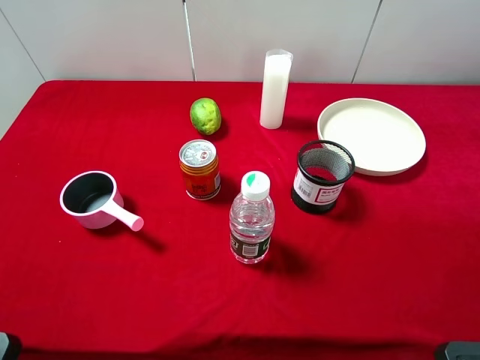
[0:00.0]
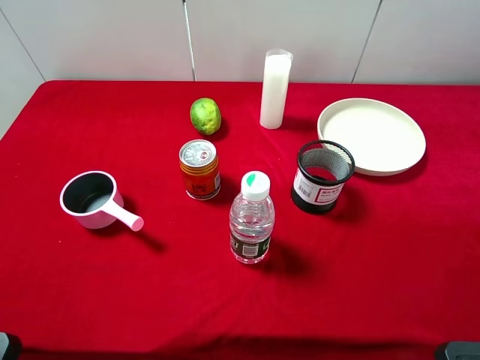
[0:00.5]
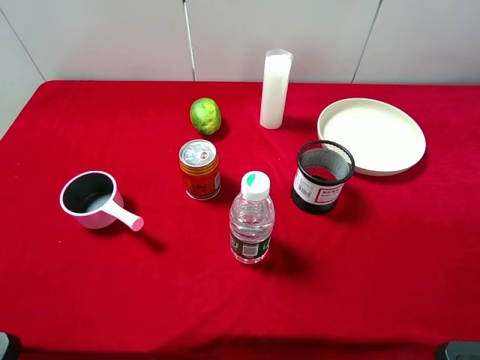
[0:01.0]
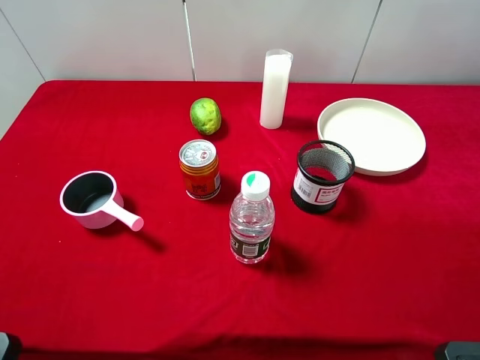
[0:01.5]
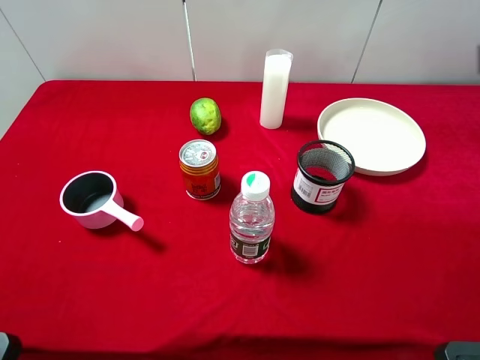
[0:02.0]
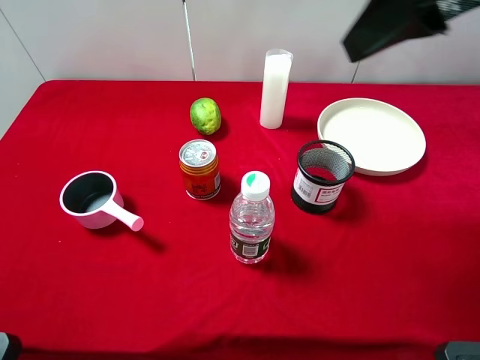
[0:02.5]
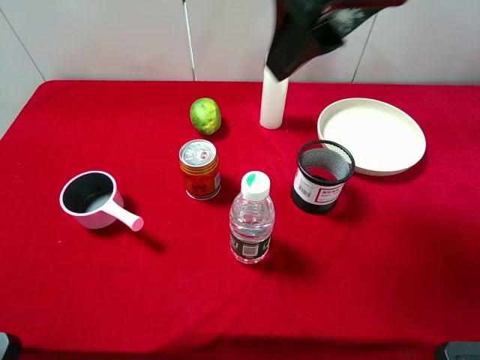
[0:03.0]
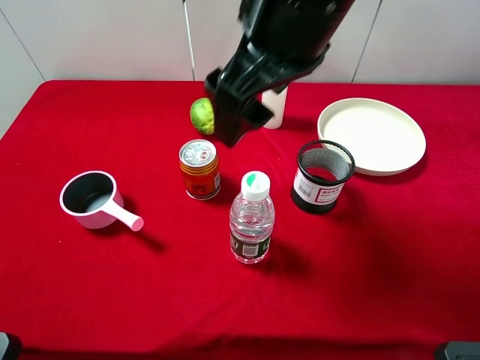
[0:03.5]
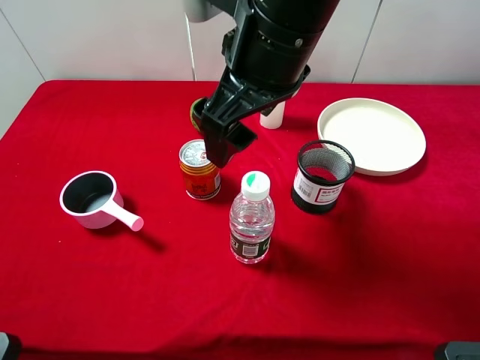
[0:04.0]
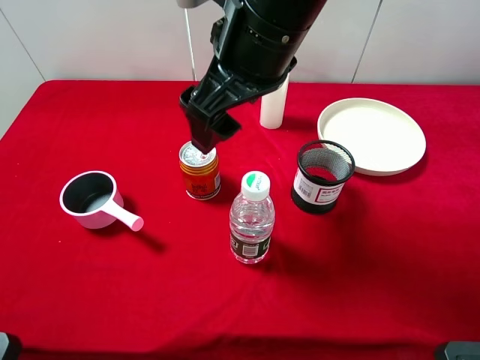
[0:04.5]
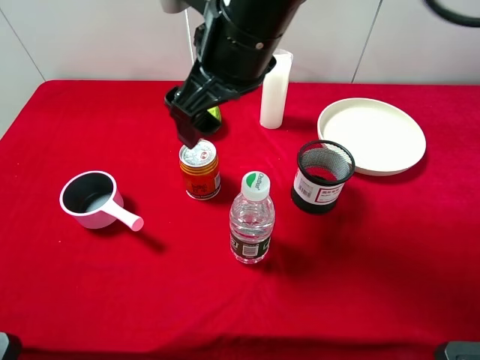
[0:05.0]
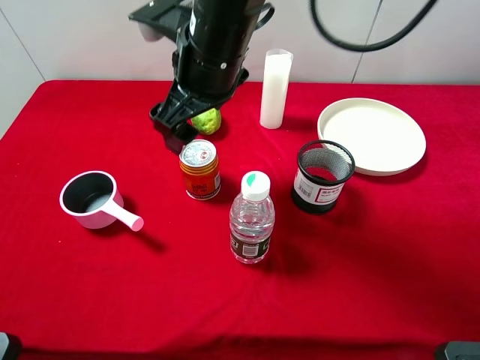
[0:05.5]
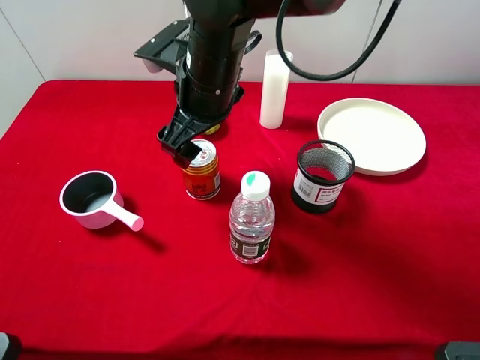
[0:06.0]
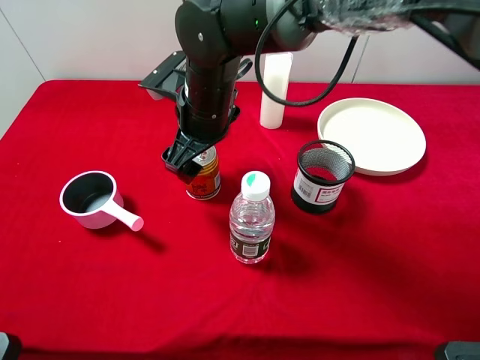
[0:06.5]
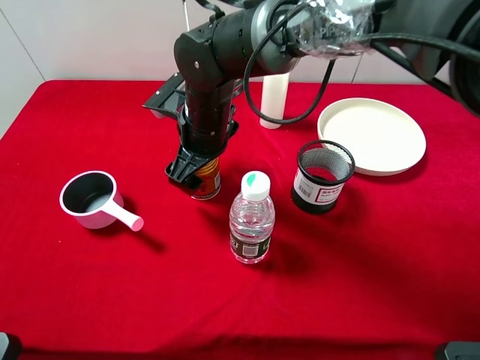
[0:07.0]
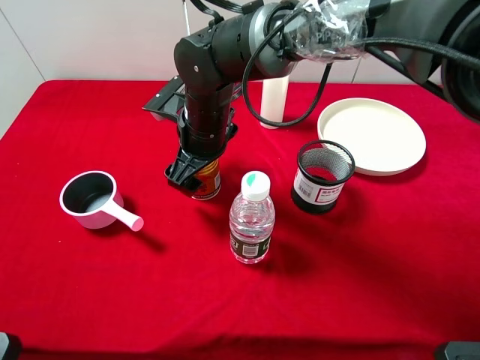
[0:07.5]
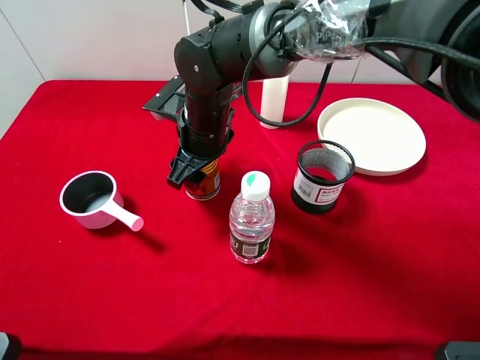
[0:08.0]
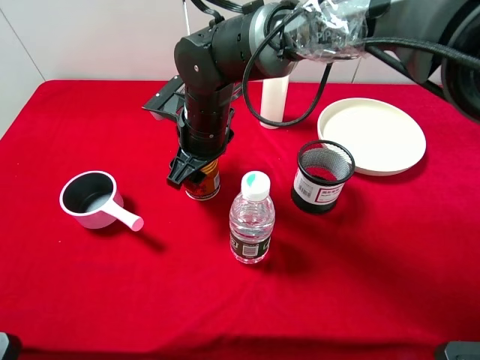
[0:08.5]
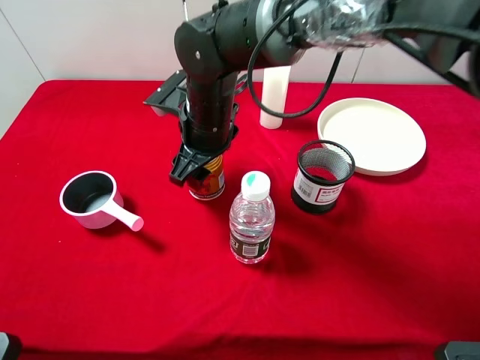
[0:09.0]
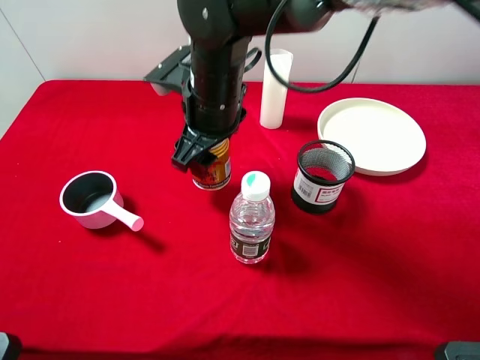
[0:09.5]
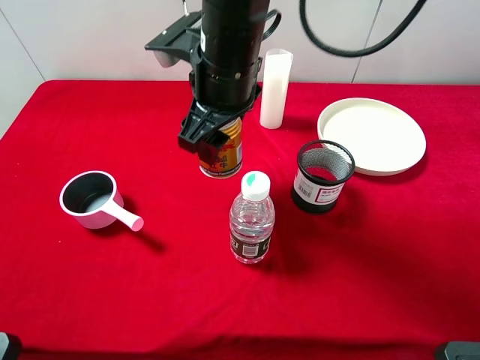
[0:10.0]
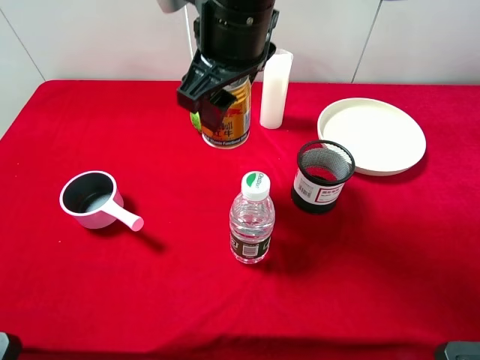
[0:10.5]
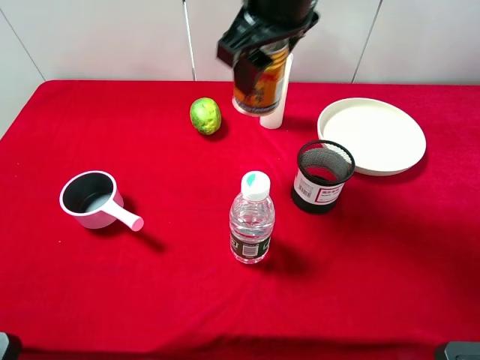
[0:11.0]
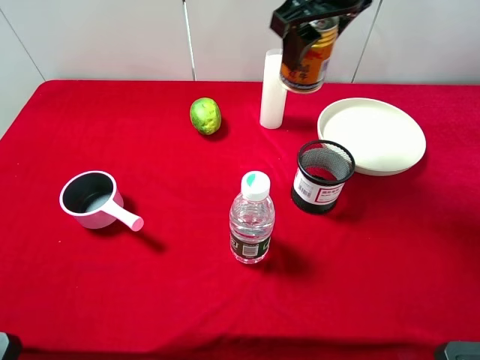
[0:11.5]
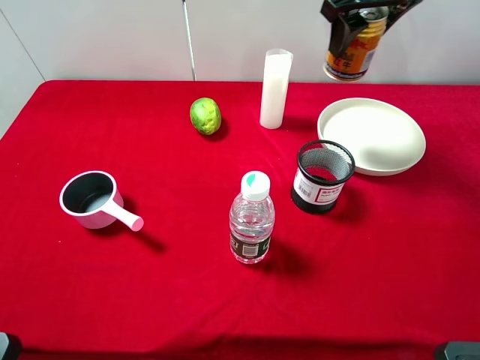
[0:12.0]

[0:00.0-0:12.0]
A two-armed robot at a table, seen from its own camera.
Task of the whole recording: pick up an item with a gripper and place it in a random container on the desktop.
0:02.0 to 0:04.0: The right gripper heads to the left, covering about 20 cm.
0:04.0 to 0:06.0: The right gripper travels downward, to the left and forward by approximately 15 cm.
0:06.0 to 0:08.0: The right gripper moves downward, some 10 cm, and closes.
0:08.0 to 0:10.0: The right gripper moves upward, roughly 10 cm.
0:10.0 to 0:12.0: The right gripper goes about 20 cm to the right, forward and upward.

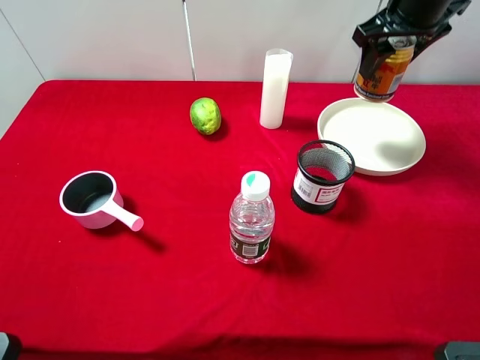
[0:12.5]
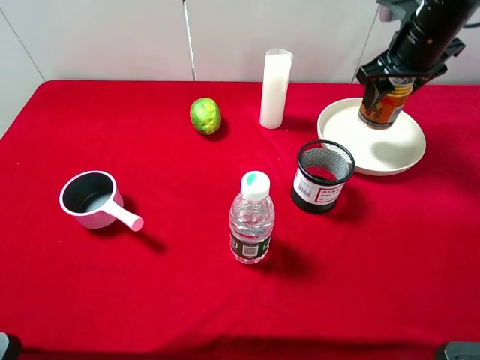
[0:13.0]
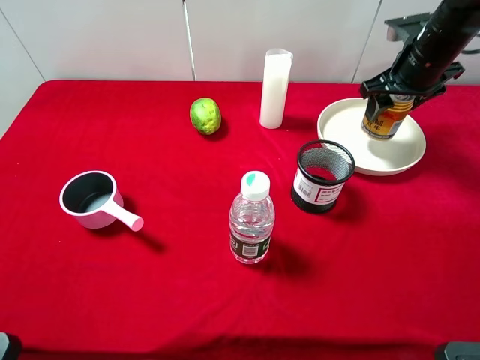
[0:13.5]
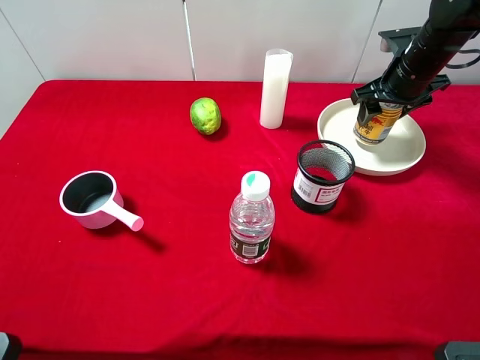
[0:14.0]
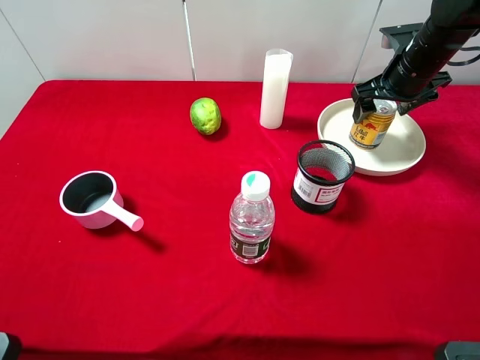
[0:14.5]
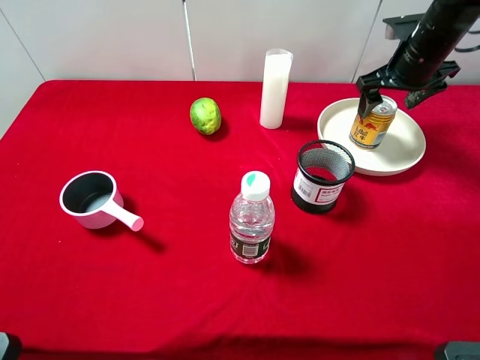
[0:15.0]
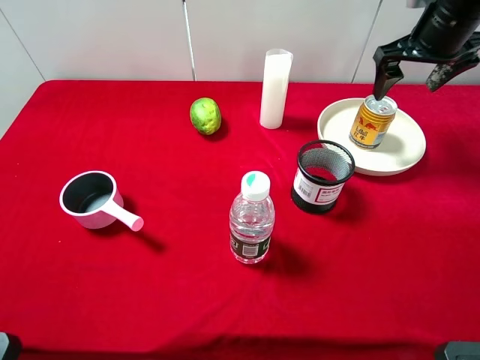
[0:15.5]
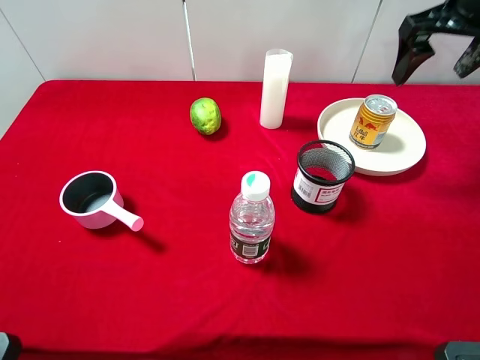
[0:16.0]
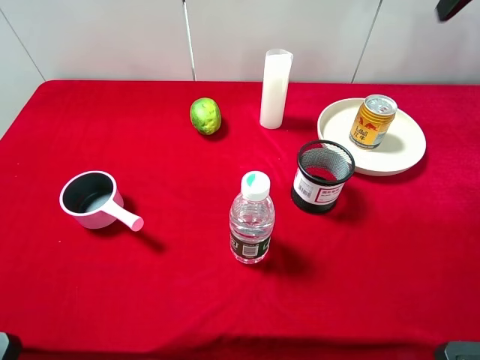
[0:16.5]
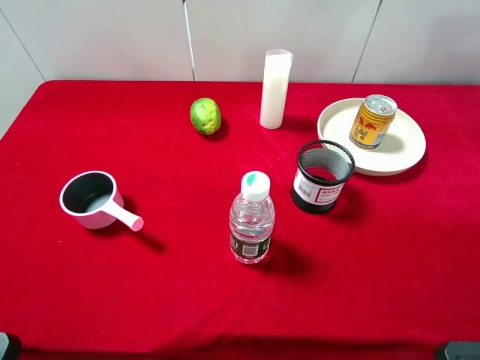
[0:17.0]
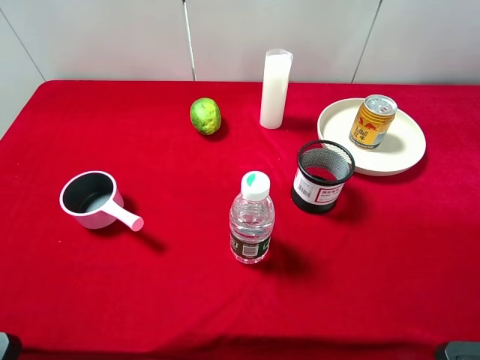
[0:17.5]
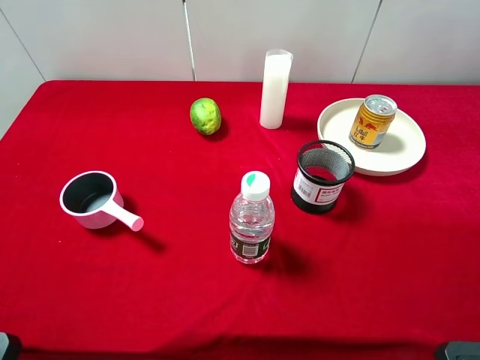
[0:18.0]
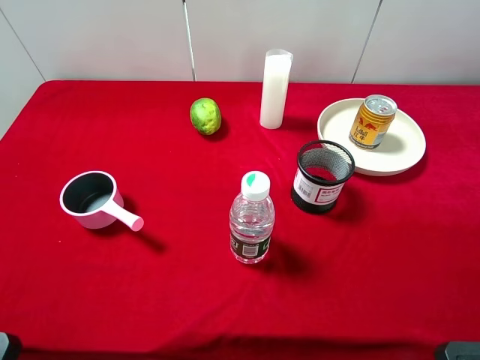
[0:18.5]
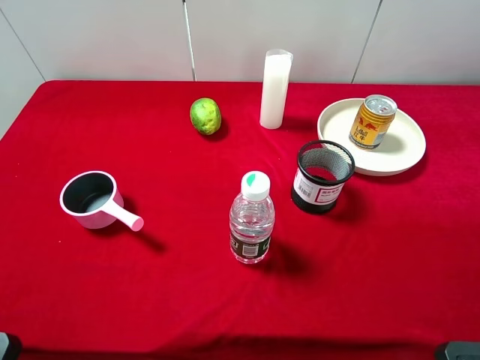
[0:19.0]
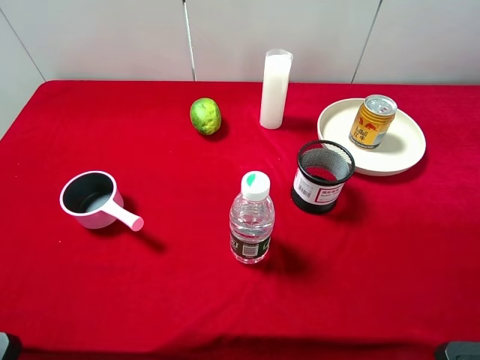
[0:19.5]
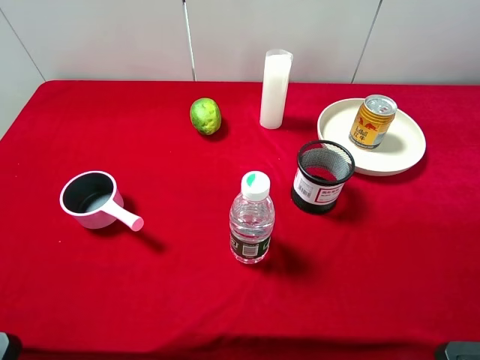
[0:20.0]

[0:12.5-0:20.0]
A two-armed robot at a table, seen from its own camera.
Task of the whole recording: pick up an item with a gripper and place it in a random container on the desktop.
0:12.5 to 0:14.5: The right gripper is displaced downward by some 10 cm, and opens its fingers.
0:14.5 to 0:16.5: The right gripper goes about 25 cm upward and backward.

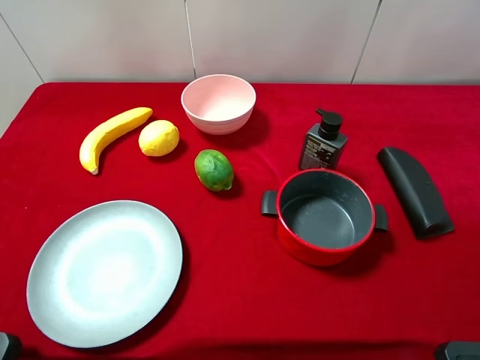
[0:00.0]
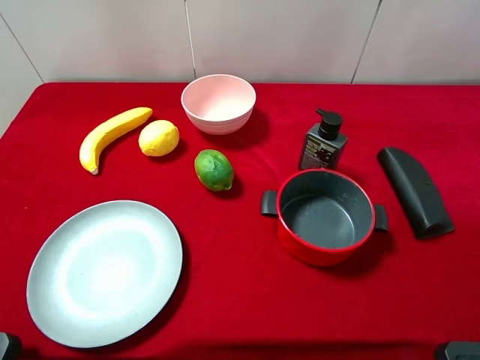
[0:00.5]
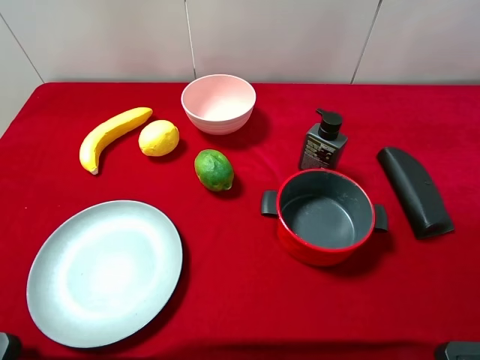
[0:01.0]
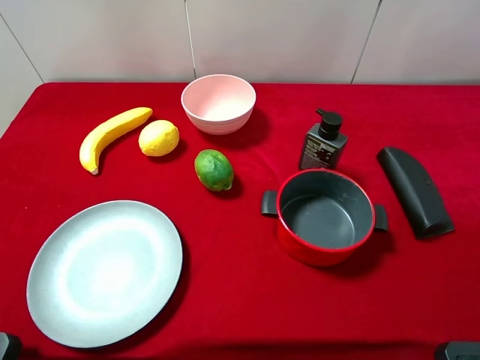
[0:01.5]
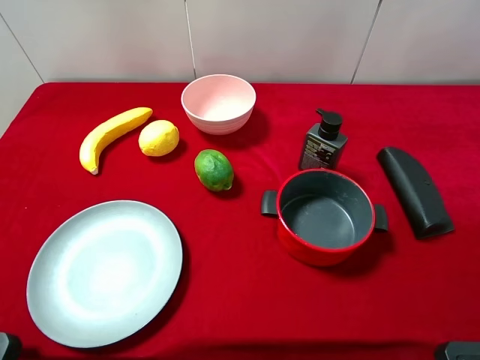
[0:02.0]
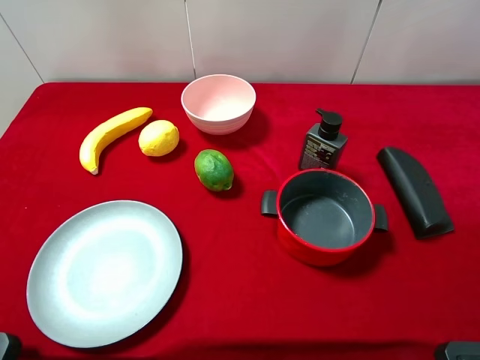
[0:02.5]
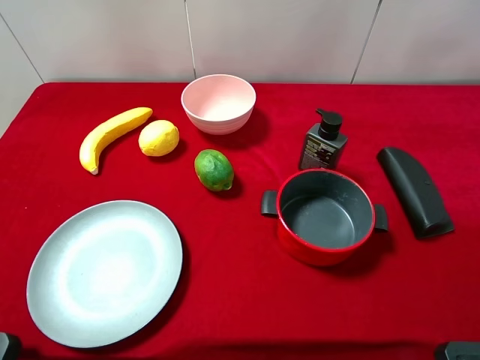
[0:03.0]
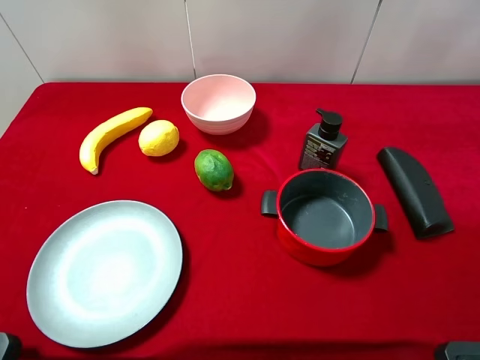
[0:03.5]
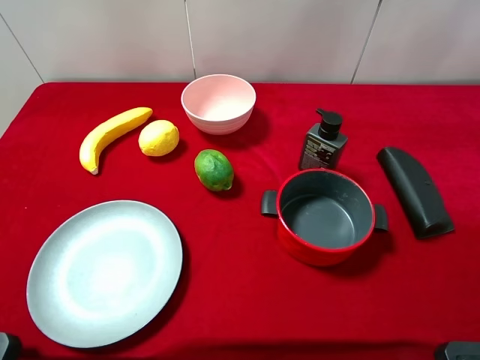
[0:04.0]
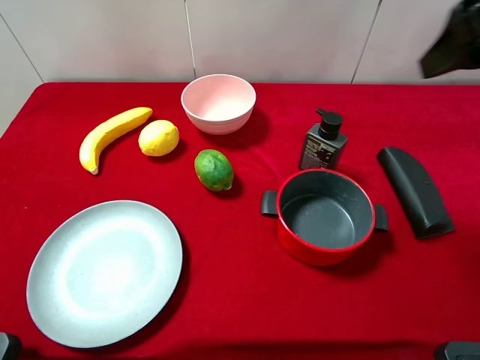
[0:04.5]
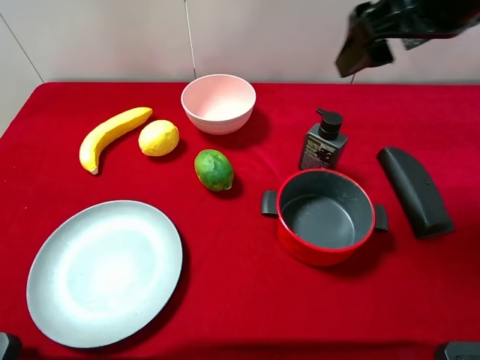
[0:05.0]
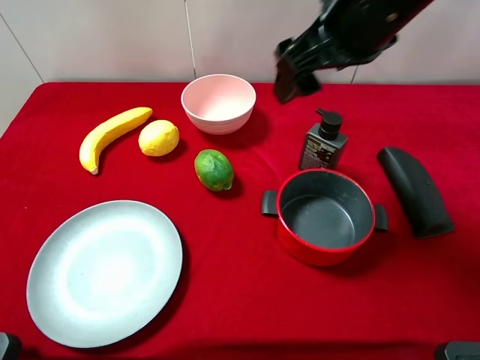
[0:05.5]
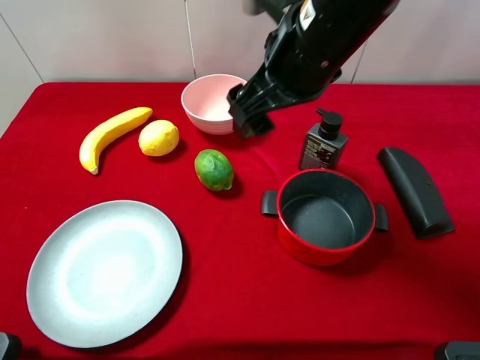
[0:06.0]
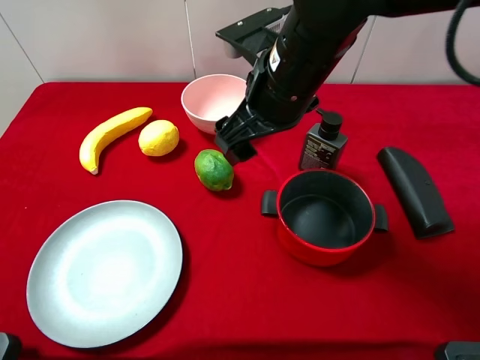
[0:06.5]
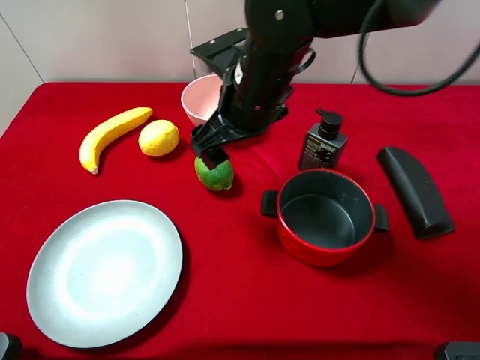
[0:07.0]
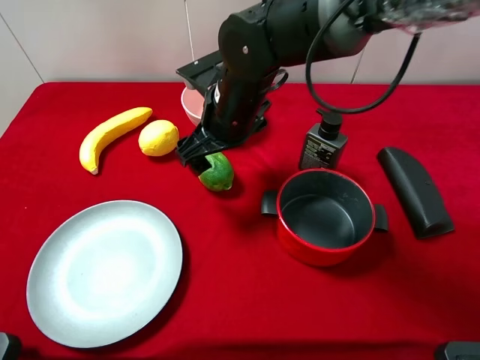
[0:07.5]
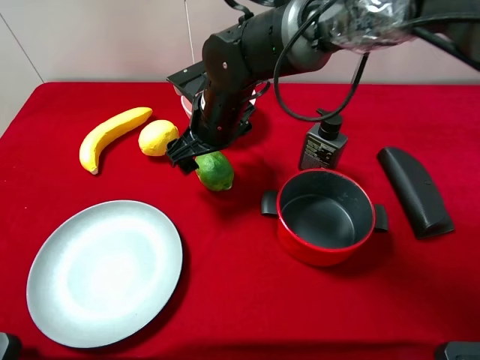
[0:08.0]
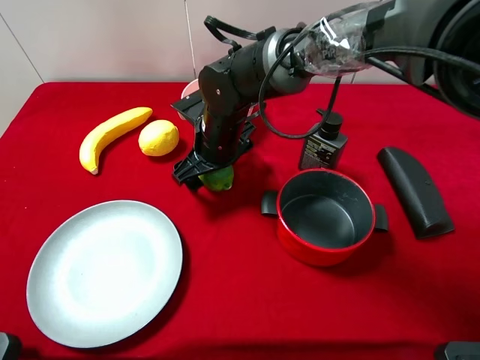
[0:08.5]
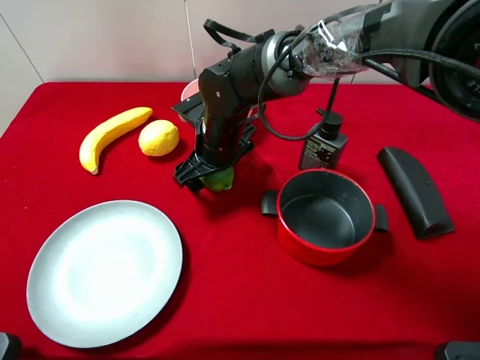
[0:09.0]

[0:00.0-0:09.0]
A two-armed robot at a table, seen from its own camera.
Task of the whole recording: pick up an item with a gripper and place it in a random container on the desktop.
0:00.0 to 0:02.0: Both grippers stay put.
0:02.0 to 0:04.5: The right gripper travels forward by roughly 20 cm.
0:04.5 to 0:07.0: The right gripper is displaced to the left and downward by about 25 cm.
0:07.0 to 0:09.0: The right gripper goes approximately 10 cm downward.
